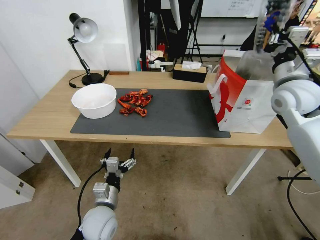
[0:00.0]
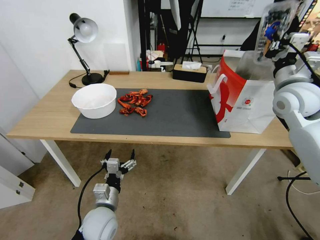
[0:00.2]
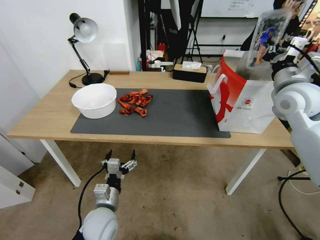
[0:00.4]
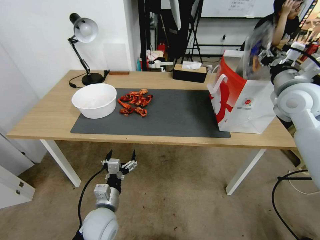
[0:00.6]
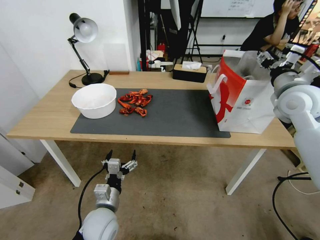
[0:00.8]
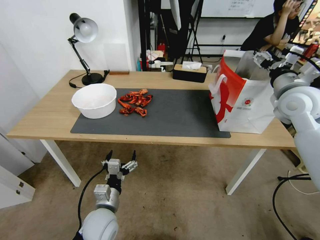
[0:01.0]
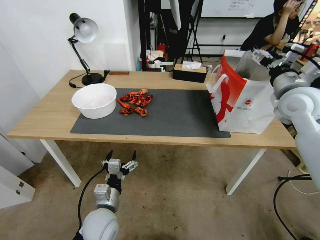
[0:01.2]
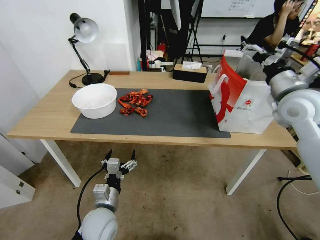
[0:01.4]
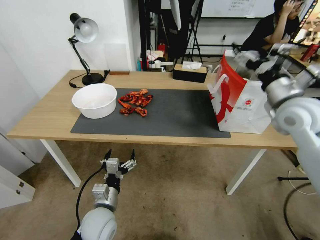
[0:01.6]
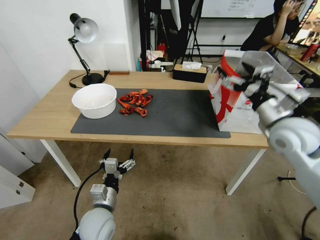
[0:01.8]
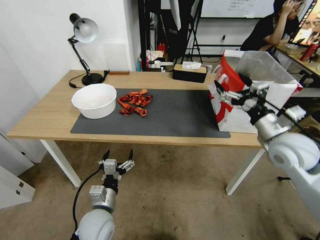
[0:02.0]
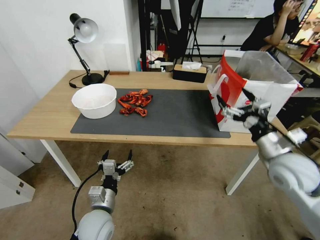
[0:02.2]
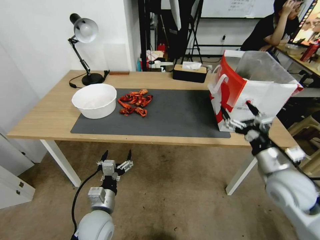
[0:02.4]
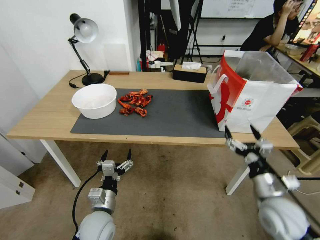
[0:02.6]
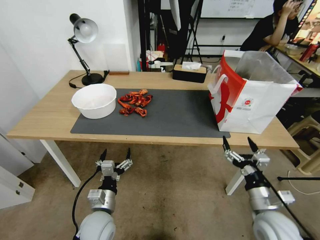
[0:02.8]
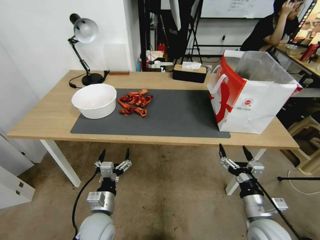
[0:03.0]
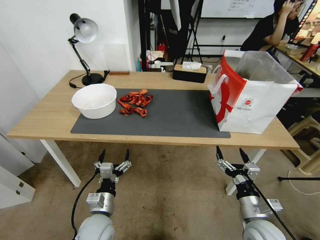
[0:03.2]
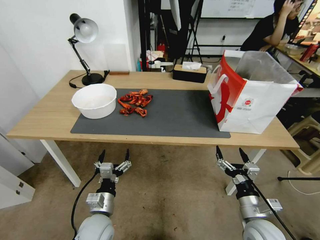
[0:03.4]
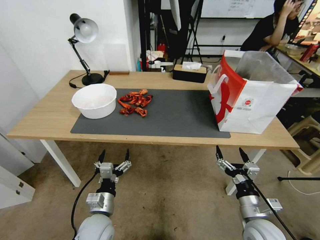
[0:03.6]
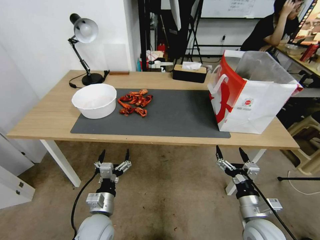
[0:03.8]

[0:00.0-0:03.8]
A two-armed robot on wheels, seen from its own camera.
Task of the whole recording: Close the takeout container lid, then place the container into the takeout bag.
0:00.0 to 0:01.2: The right gripper opens.
0:01.2 to 0:02.6: The right gripper shifts approximately 30 cm downward and backward.
0:02.6 to 0:03.8: The right gripper shifts approximately 10 cm downward.

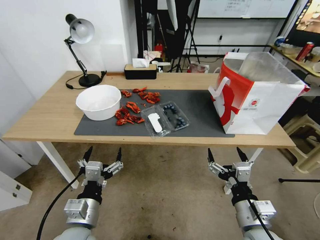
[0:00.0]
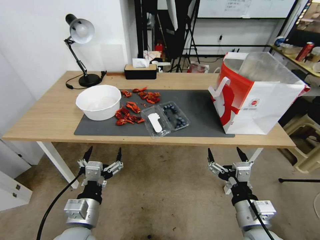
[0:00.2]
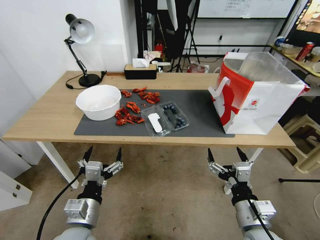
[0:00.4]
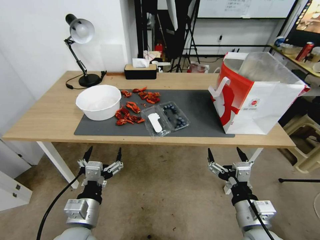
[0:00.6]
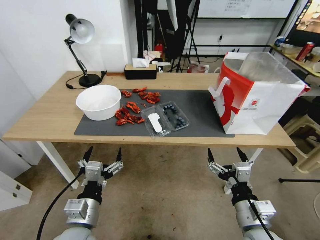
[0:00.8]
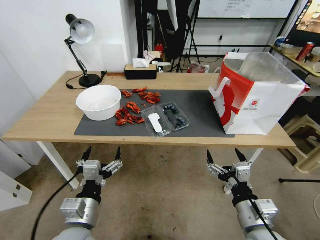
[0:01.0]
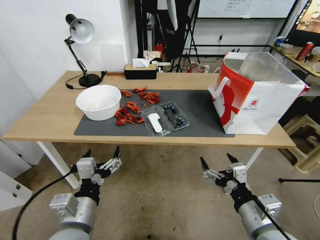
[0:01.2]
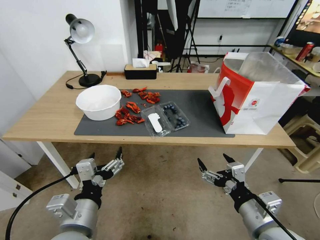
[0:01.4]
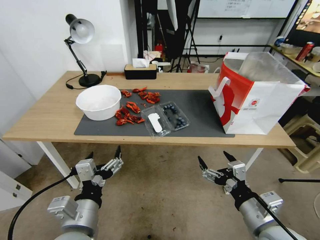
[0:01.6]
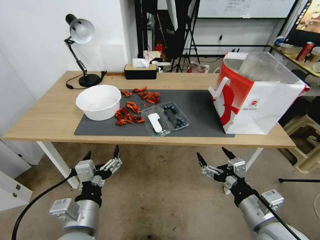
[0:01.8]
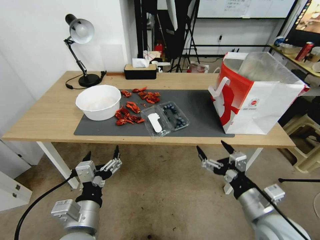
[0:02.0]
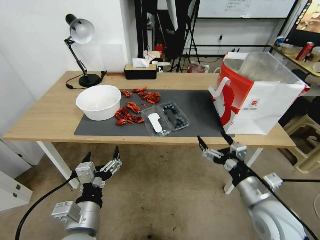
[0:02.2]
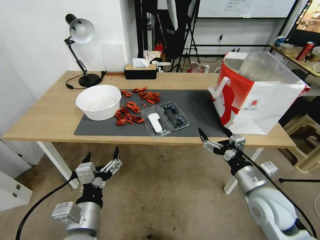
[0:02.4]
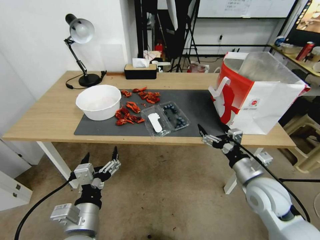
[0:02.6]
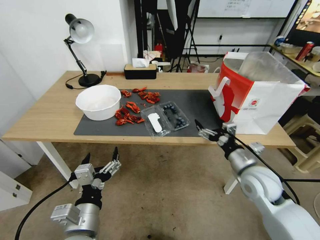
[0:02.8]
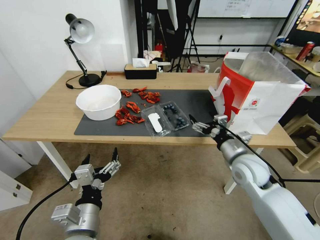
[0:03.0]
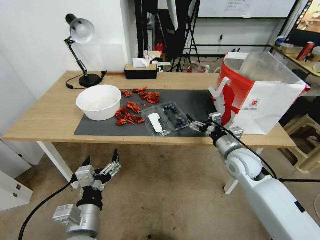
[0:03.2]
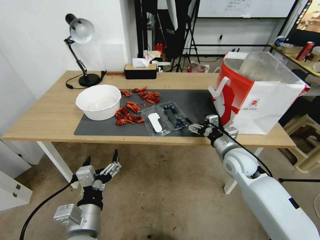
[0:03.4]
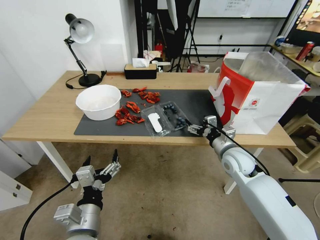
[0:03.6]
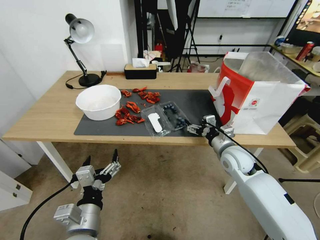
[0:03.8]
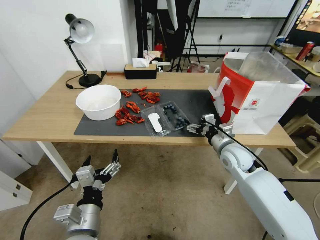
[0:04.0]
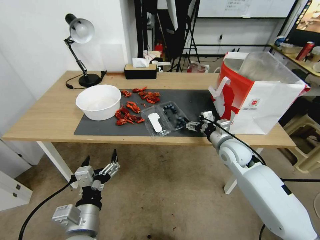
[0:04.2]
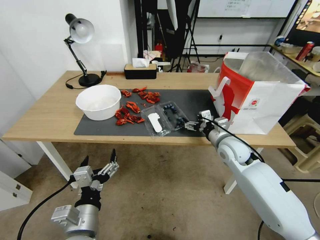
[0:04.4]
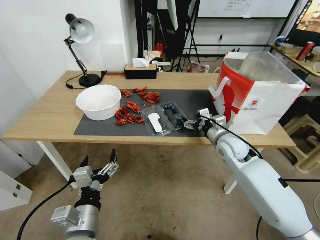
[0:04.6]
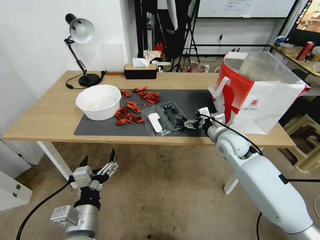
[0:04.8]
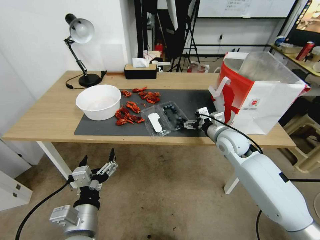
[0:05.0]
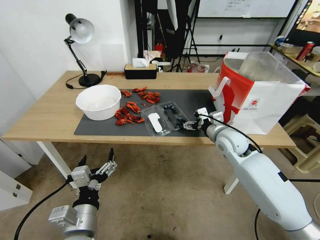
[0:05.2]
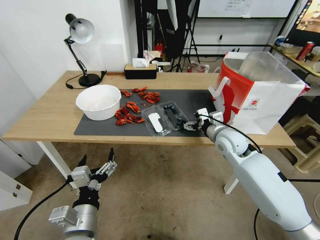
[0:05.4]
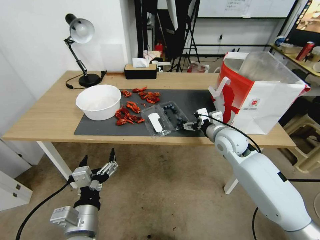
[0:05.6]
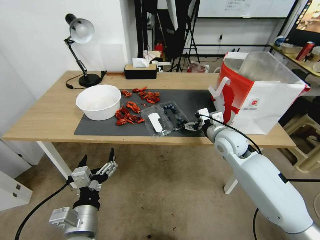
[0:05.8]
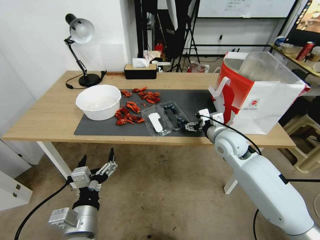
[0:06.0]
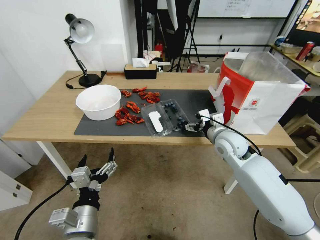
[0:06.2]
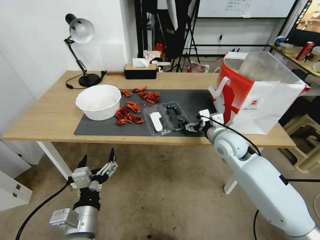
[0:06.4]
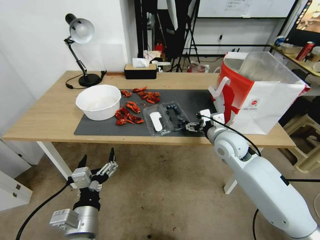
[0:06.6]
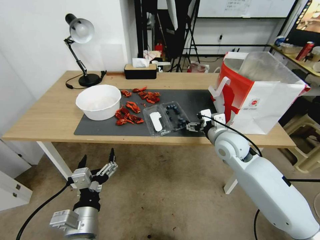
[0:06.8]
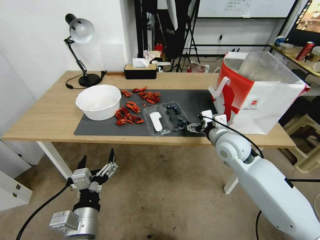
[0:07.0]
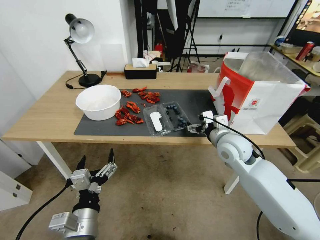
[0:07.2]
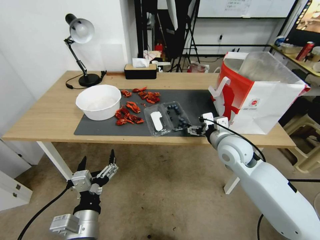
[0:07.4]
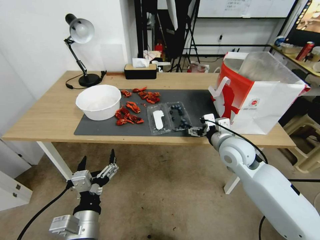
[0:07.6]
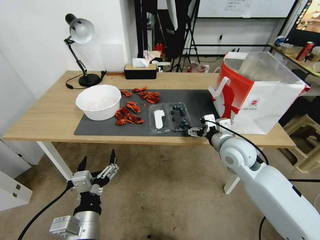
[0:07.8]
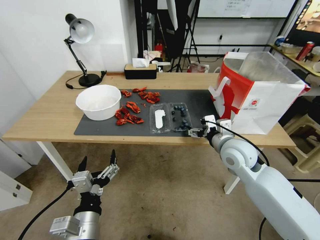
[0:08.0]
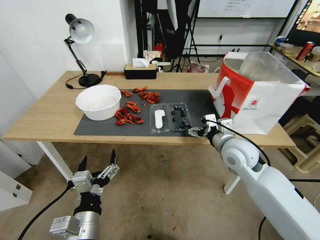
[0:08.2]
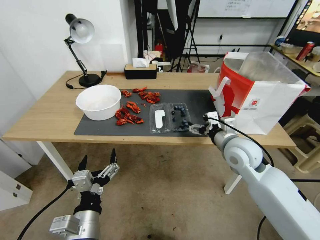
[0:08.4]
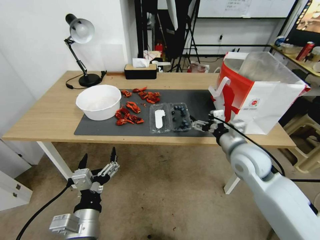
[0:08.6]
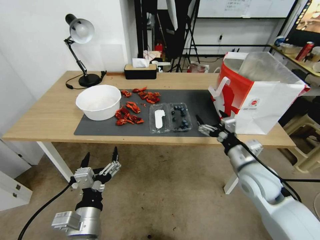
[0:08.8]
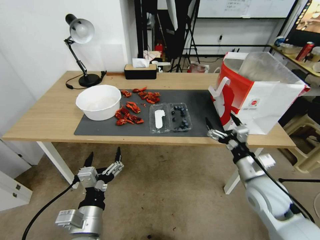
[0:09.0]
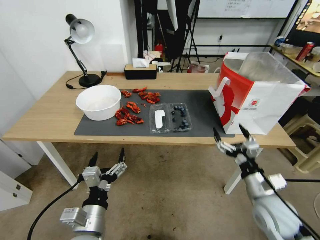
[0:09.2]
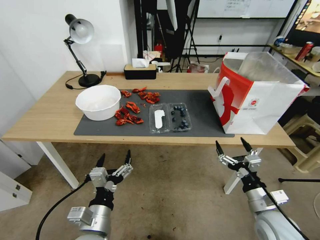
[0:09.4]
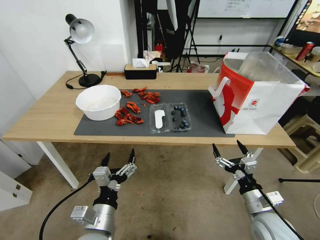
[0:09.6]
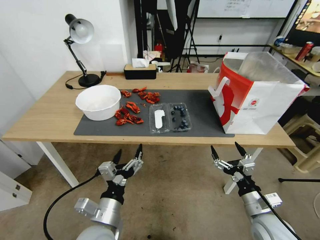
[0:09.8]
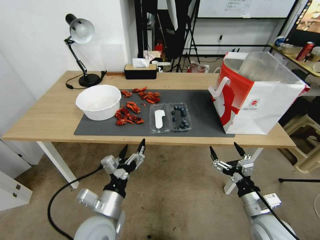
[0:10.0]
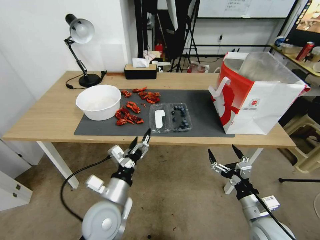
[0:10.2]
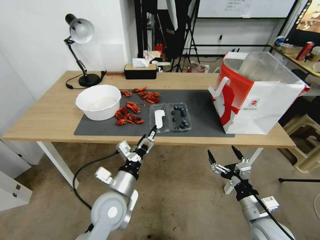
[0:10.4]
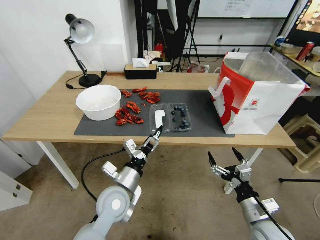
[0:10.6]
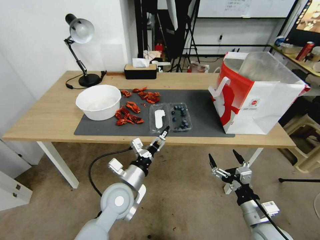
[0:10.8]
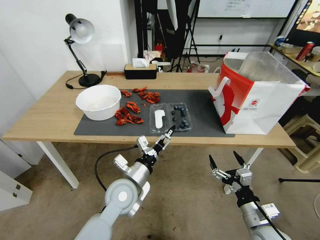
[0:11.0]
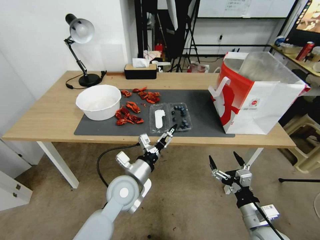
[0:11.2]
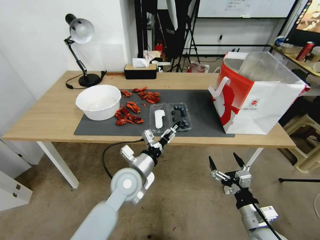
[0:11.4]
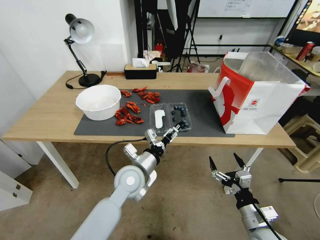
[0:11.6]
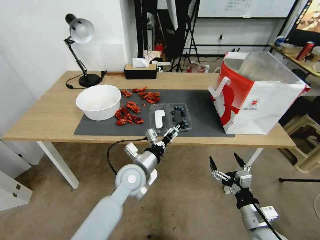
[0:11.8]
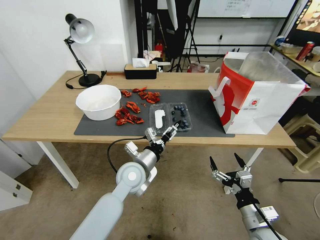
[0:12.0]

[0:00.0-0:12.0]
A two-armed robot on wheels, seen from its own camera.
Task of the whole recording: Close the takeout container lid, then place the container into the takeout bag.
0:01.6 to 0:03.0: The right gripper moves forward, about 20 cm.
0:03.0 to 0:04.4: The right gripper heads forward, covering roughly 5 cm.
0:04.4 to 0:07.6: The grippers make only small movements.
0:07.6 to 0:09.0: The right gripper shifts roughly 15 cm backward, to the right and downward.
0:09.0 to 0:10.4: The right gripper shifts about 10 cm backward and downward. The left gripper heads forward, covering roughly 10 cm.
0:10.4 to 0:12.0: The left gripper moves forward, approximately 10 cm.

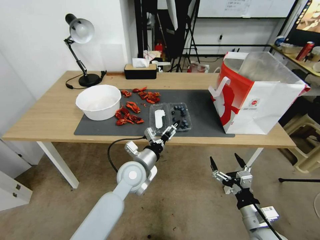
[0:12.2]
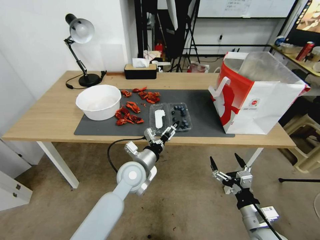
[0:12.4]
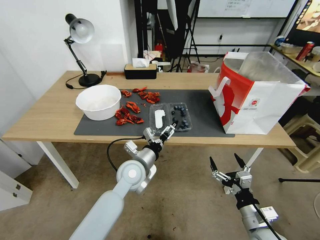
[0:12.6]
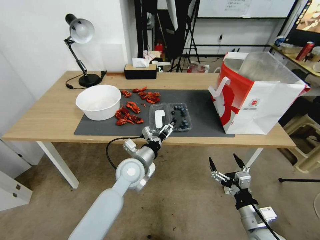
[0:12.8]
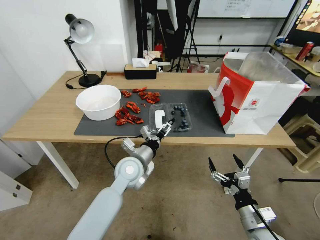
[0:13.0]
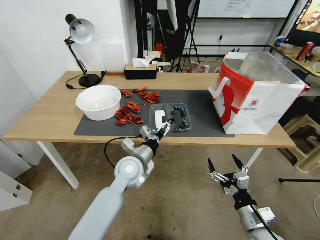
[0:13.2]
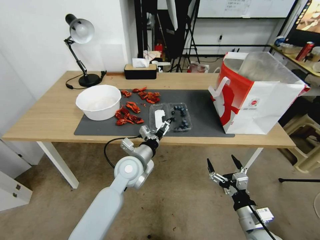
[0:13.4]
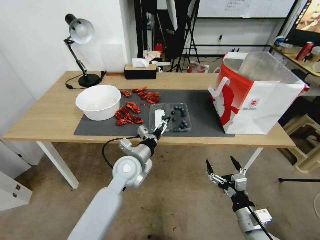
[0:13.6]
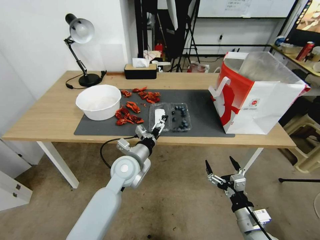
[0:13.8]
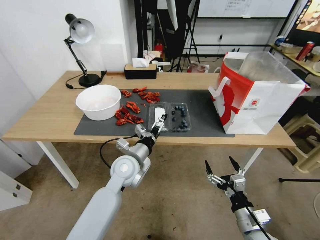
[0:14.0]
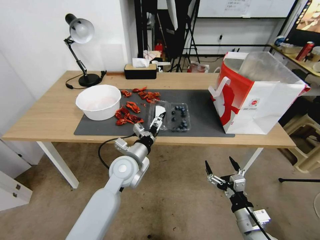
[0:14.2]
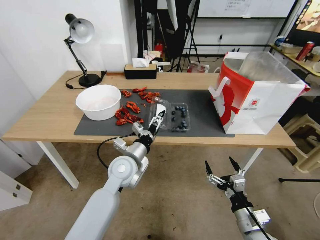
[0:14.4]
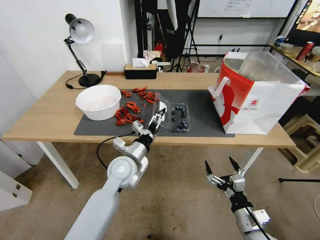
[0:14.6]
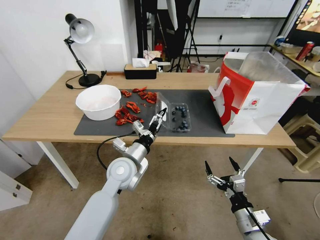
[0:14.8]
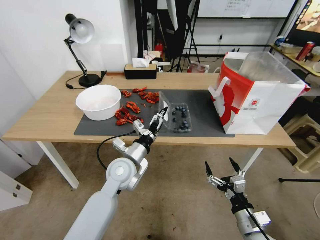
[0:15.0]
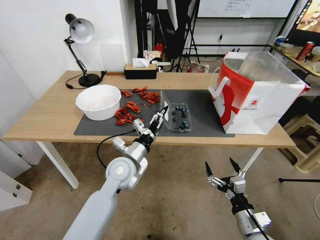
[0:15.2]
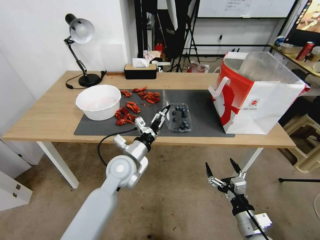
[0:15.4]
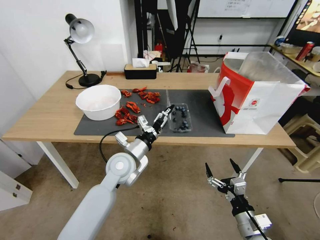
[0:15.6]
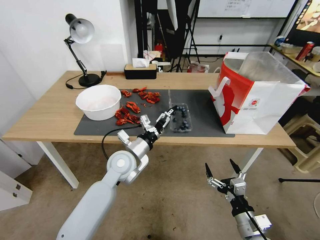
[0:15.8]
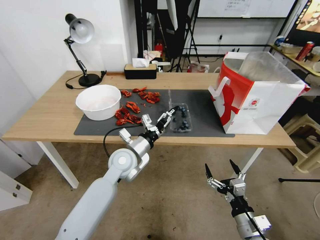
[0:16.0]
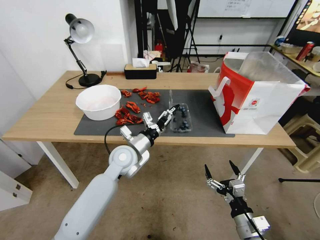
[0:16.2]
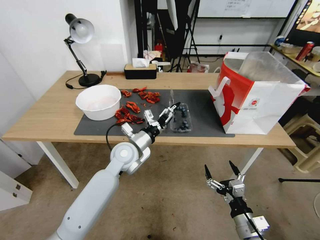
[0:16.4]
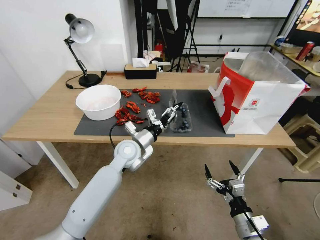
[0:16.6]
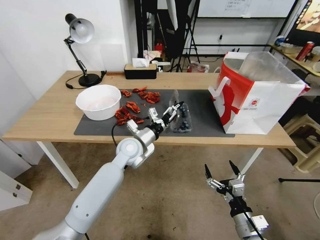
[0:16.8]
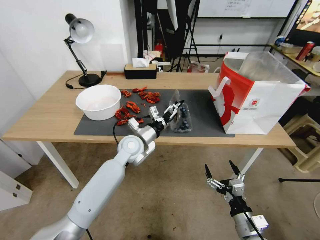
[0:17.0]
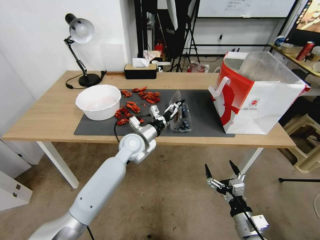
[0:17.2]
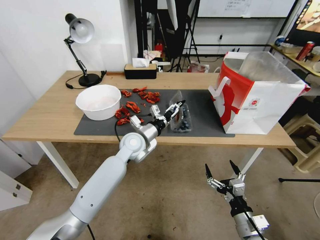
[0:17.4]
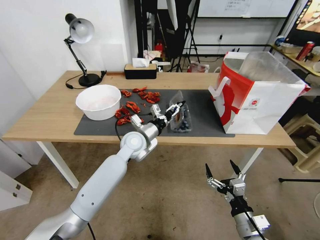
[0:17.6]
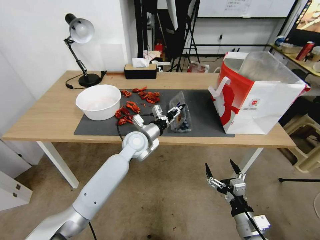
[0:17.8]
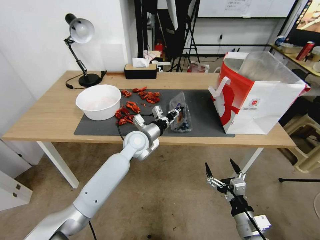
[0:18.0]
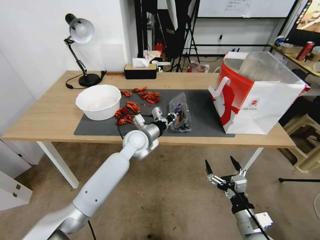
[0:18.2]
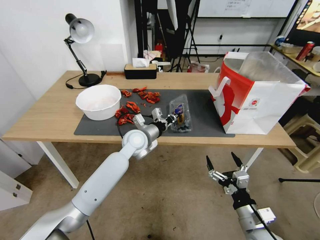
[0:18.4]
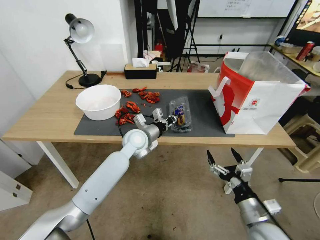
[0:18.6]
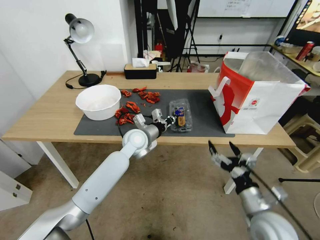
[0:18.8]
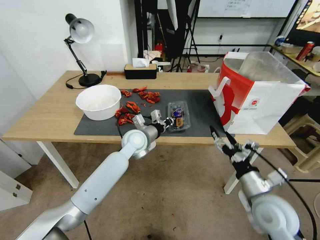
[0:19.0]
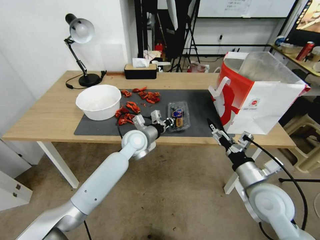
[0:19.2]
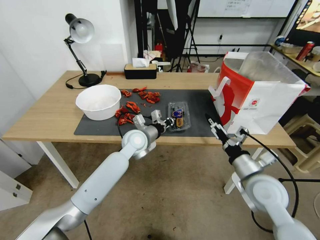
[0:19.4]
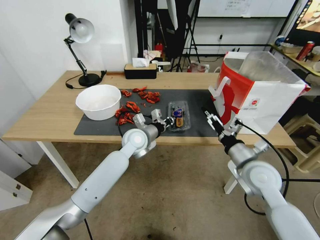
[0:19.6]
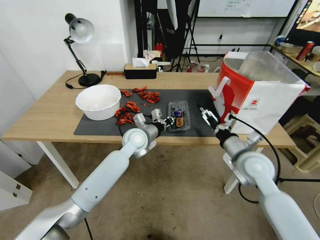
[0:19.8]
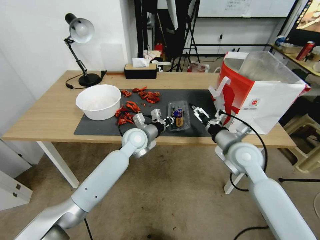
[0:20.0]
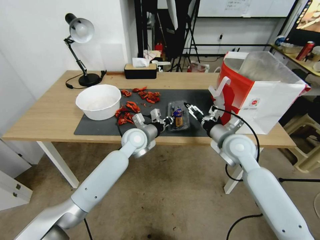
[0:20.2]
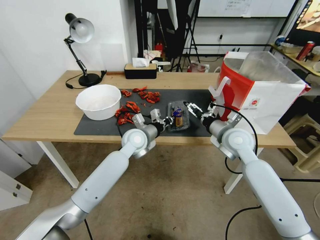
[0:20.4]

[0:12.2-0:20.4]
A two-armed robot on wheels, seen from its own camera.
Task of the whole recording: Close the takeout container lid, then place the container into the takeout bag.
0:12.2 to 0:15.4: The grippers stay close to where they were, moving slightly.
0:15.4 to 0:17.2: The left gripper moves forward, some 10 cm.
0:17.2 to 0:18.8: The left gripper closes its fingers. The right gripper is displaced upward by roughly 10 cm.
0:18.8 to 0:20.4: The right gripper moves forward and upward, some 25 cm.
